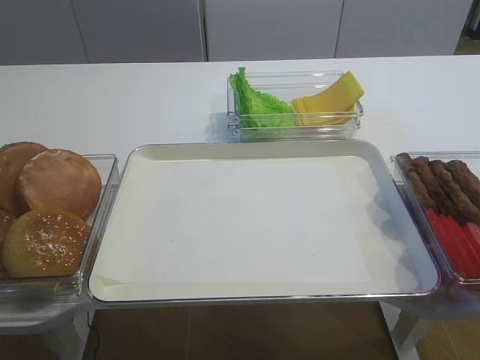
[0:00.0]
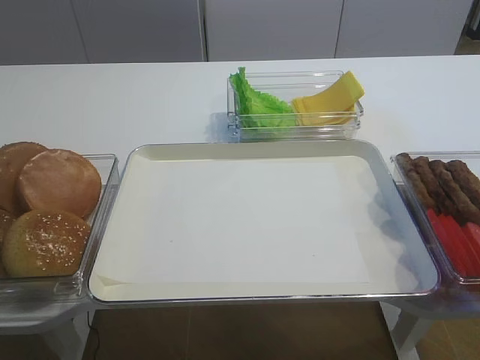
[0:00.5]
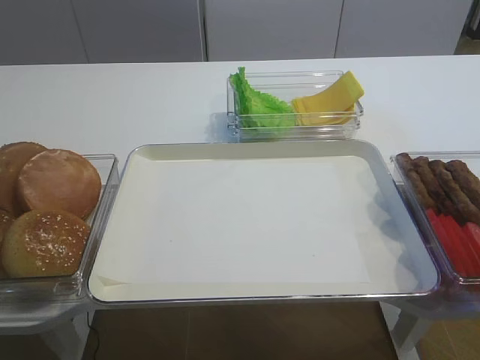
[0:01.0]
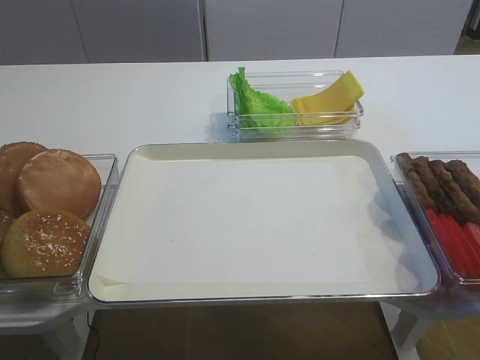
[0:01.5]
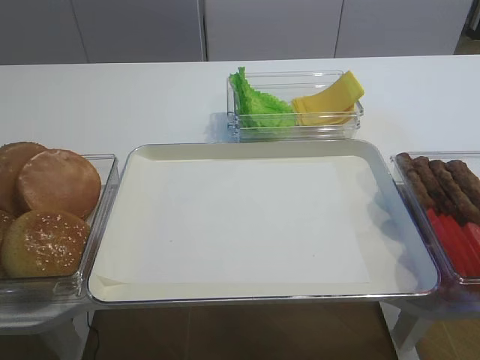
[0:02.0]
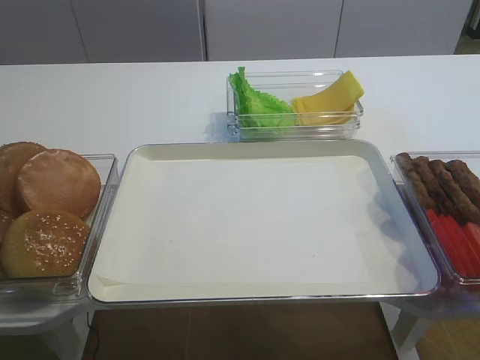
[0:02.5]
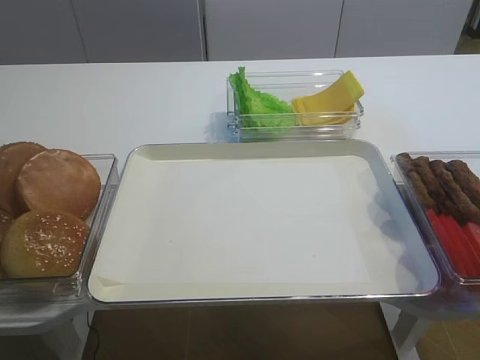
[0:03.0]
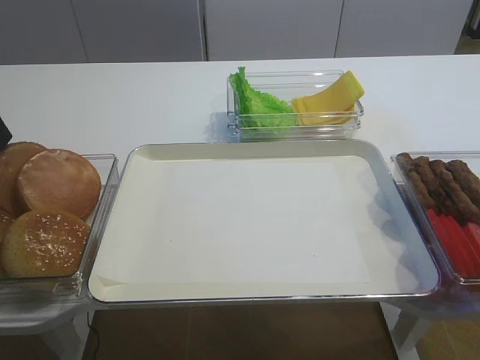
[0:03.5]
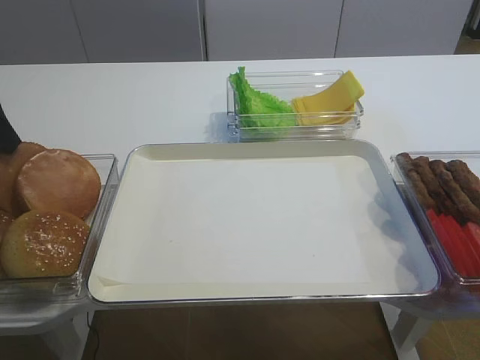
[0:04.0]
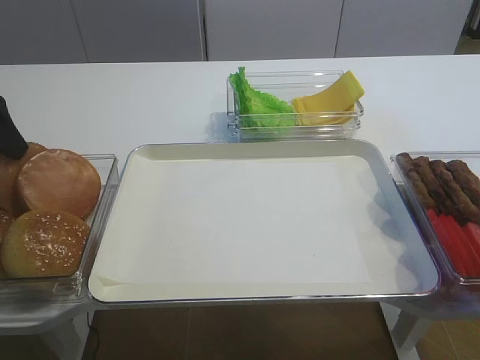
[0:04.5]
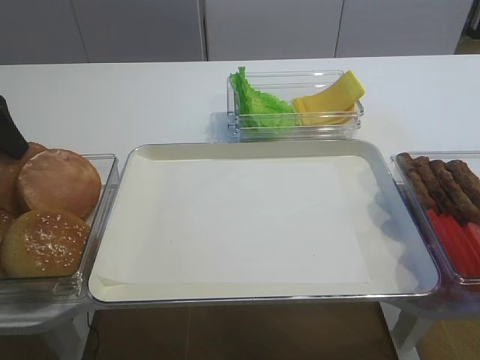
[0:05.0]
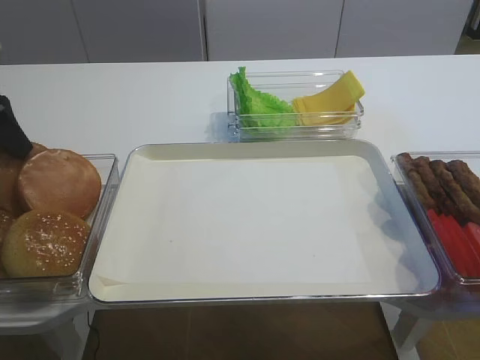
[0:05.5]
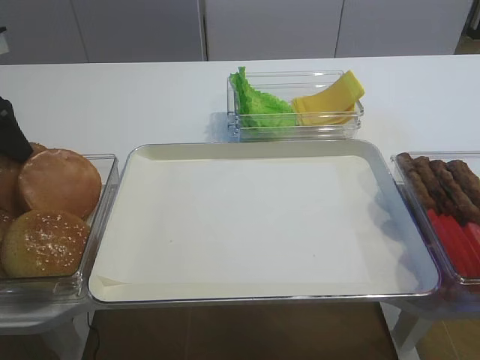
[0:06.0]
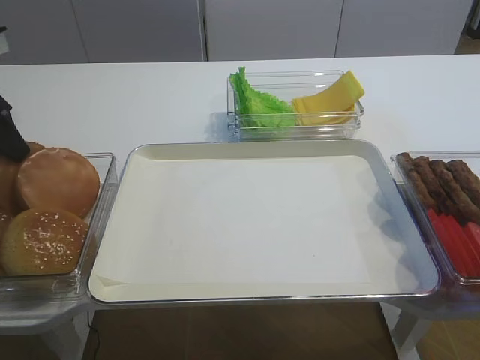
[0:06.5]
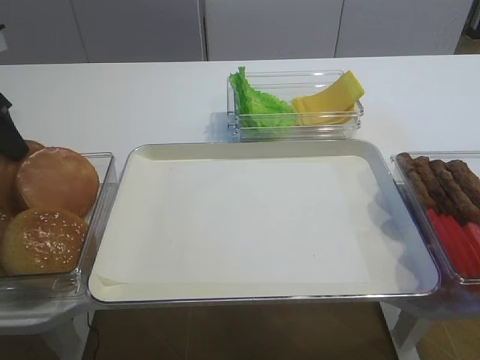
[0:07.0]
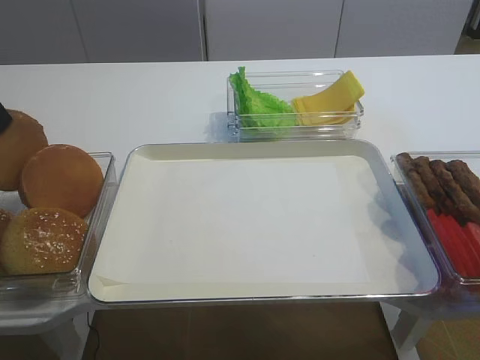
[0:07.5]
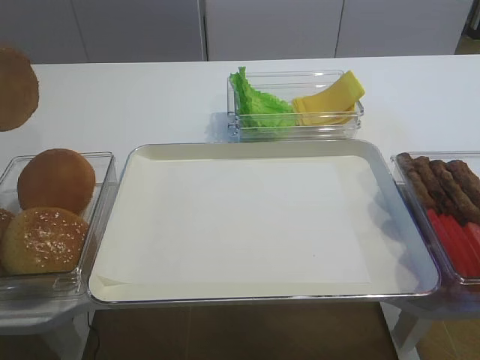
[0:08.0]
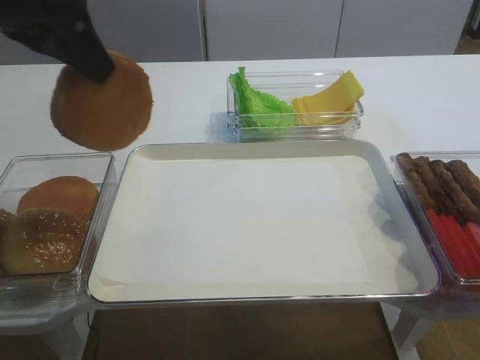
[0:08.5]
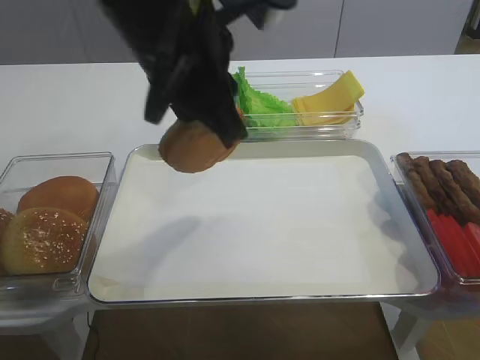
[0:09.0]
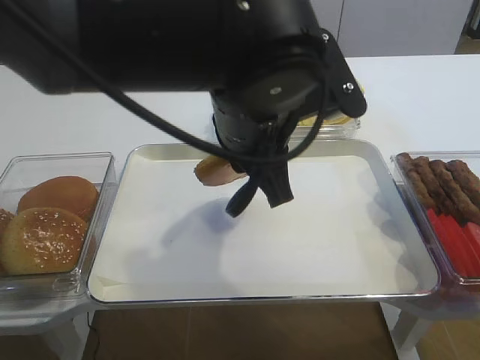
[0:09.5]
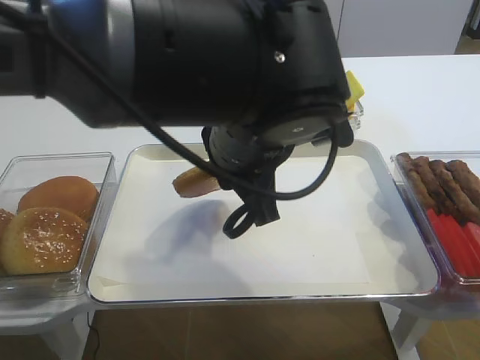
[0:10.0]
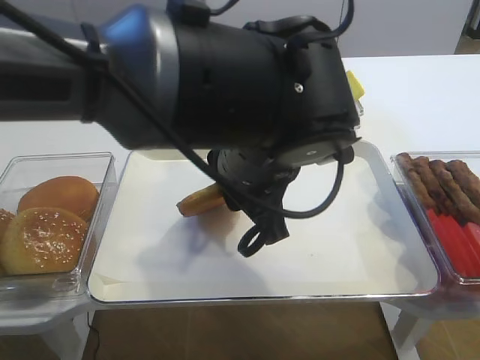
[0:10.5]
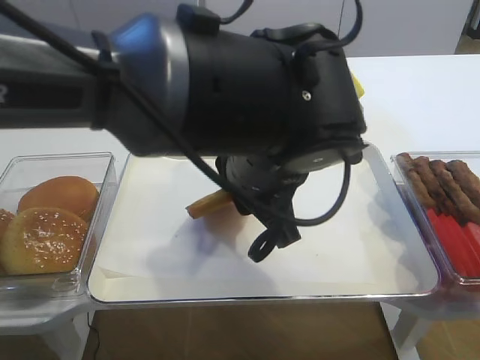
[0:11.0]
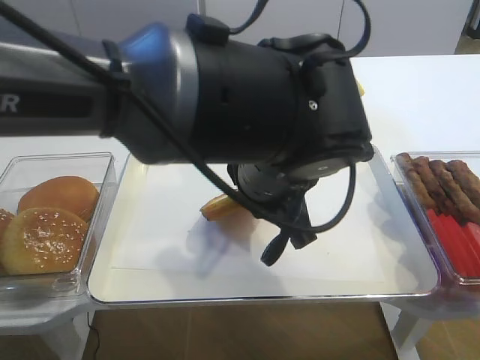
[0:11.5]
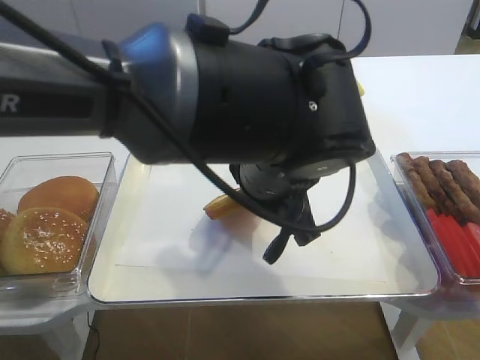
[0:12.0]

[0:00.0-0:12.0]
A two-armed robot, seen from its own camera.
Step, 0:00.0 to 0:07.5: Pick up the bread slice with the left gripper.
0:06.0 to 0:08.0: The left gripper shifts about 10 cm upward, and closes its fingers.
0:08.0 to 0:10.0: The right gripper closes up. Meanwhile the left gripper heads to the right, covering some 30 cm.

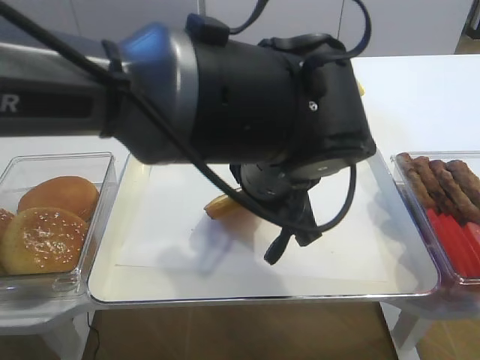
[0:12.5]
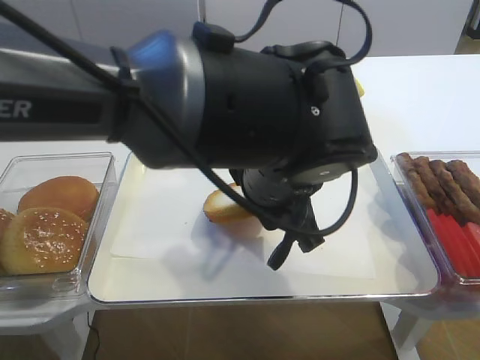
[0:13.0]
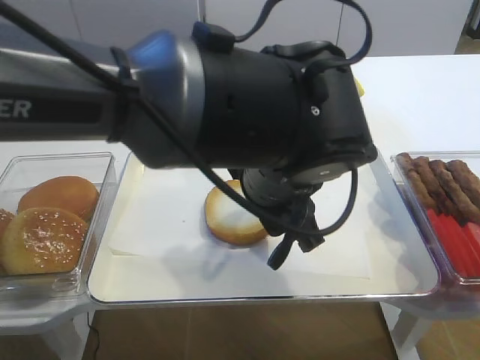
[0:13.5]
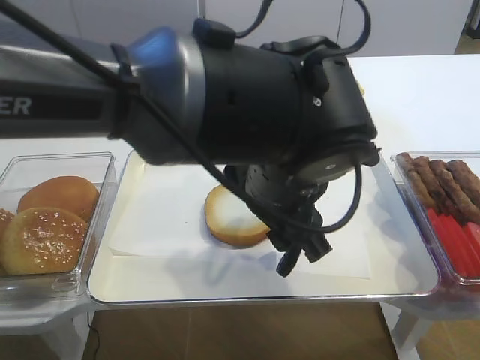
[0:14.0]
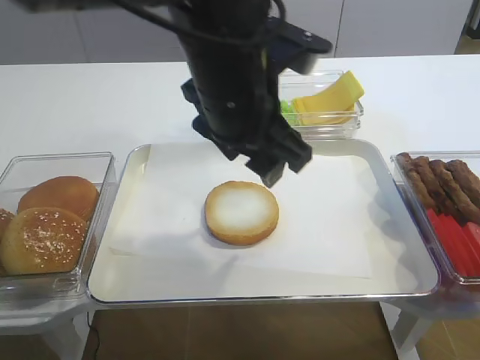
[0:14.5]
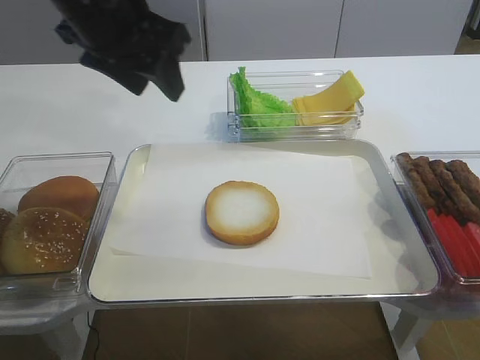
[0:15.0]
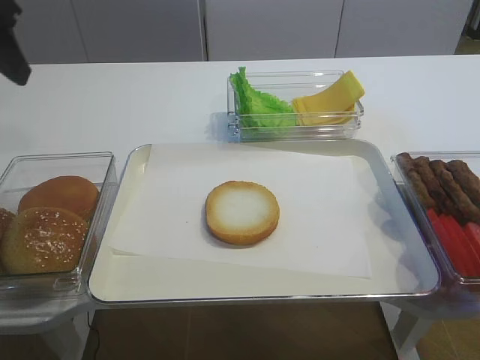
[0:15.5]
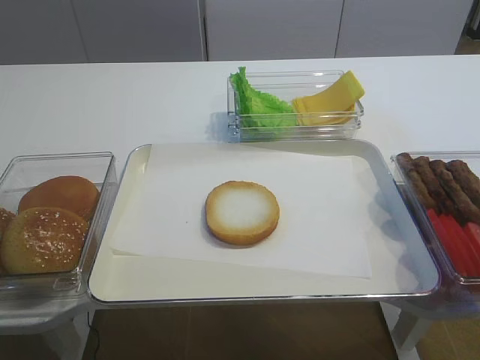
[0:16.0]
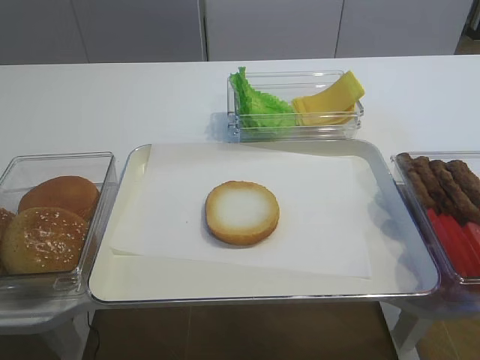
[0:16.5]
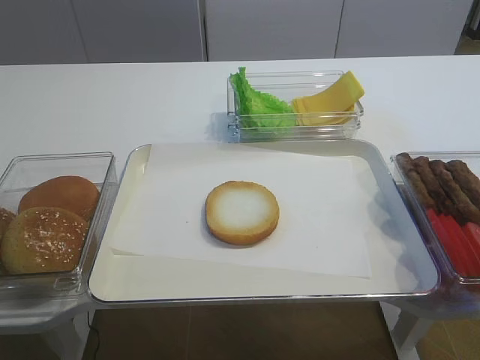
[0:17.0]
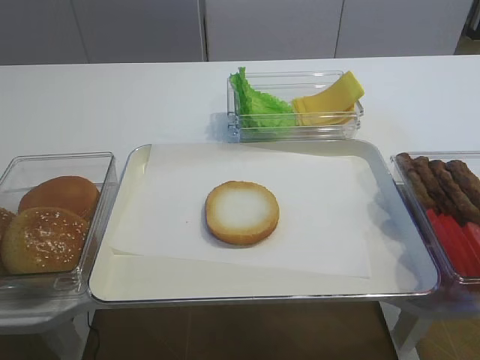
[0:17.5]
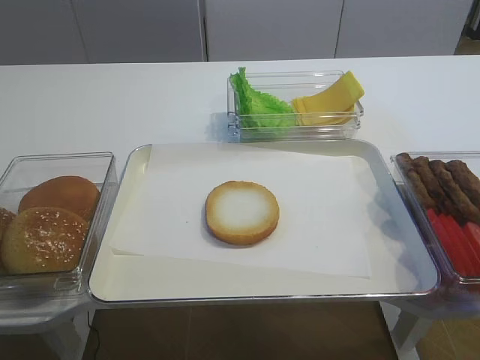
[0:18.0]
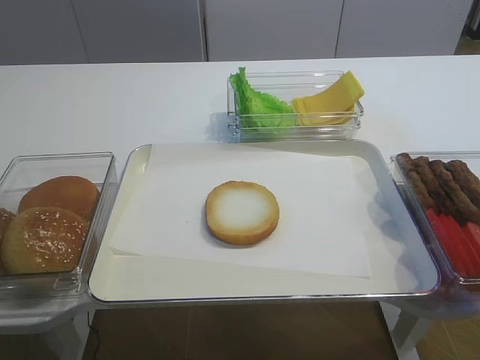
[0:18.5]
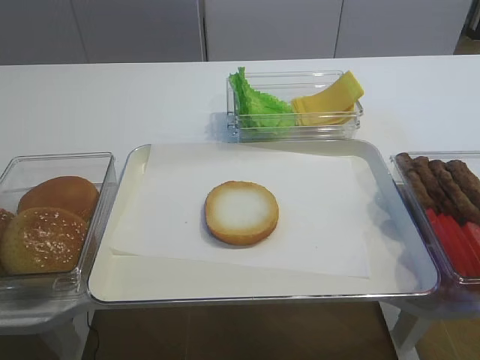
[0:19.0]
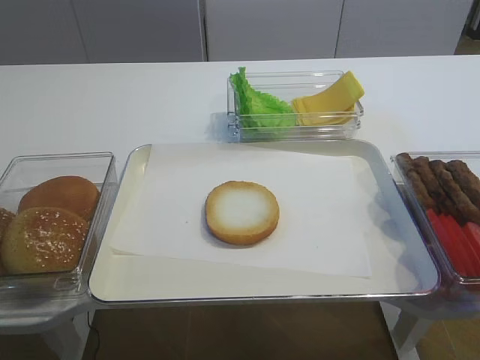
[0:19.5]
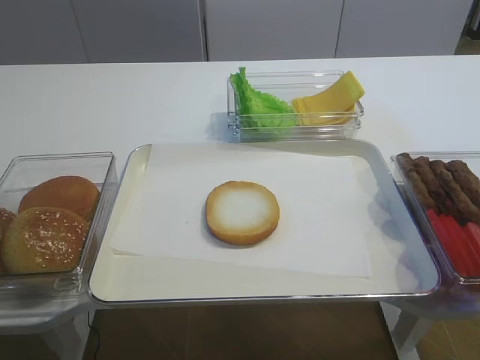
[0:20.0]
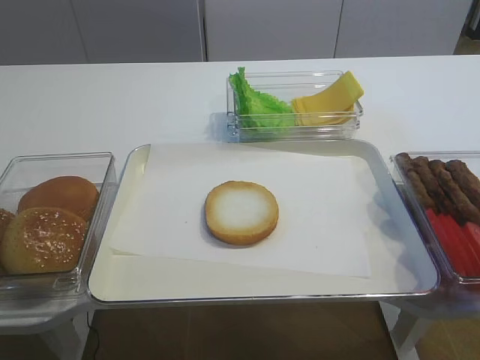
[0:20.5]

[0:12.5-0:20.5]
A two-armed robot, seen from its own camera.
0:12.5 to 0:14.5: The left gripper travels upward and to the left by approximately 10 cm, and opens up.
0:14.5 to 0:16.5: The left gripper travels to the left and backward by about 35 cm.
0:18.5 to 0:20.5: Both grippers stay put.

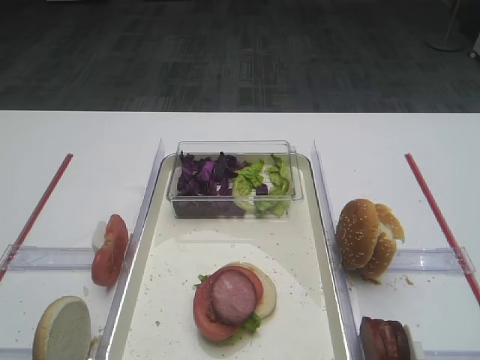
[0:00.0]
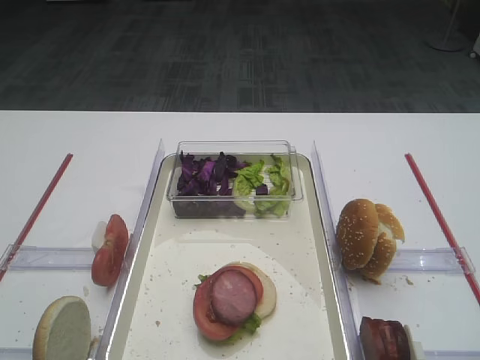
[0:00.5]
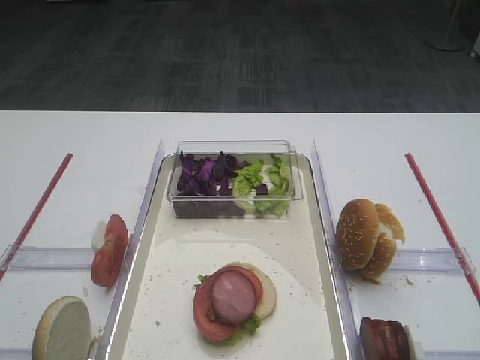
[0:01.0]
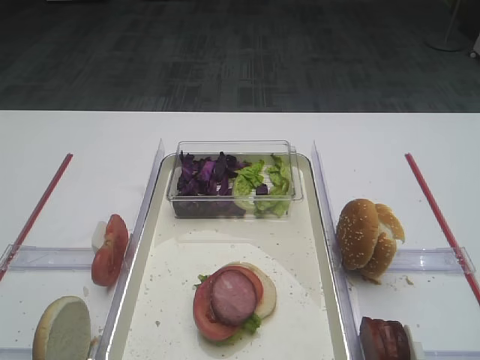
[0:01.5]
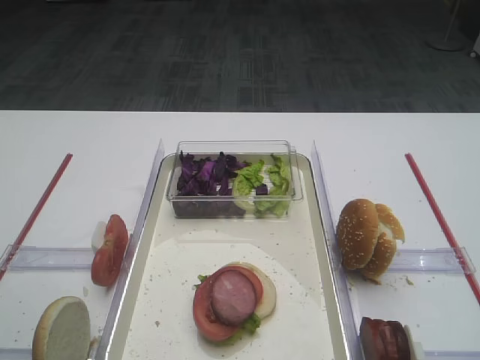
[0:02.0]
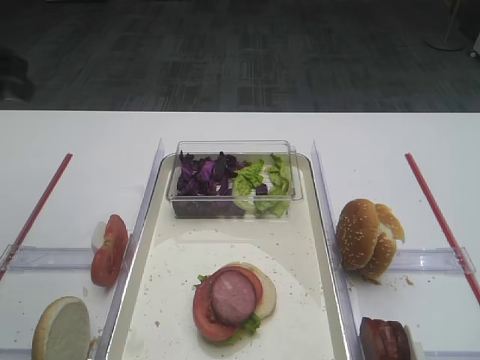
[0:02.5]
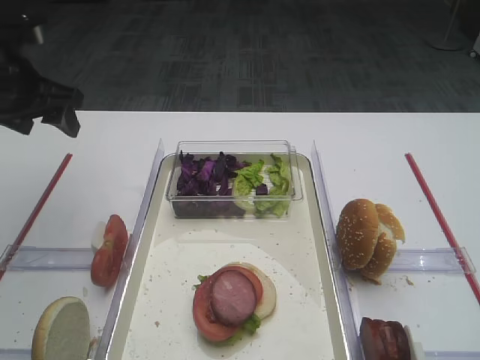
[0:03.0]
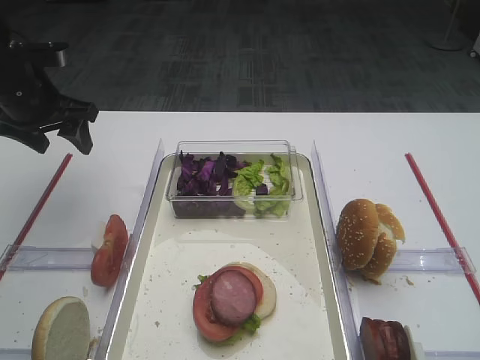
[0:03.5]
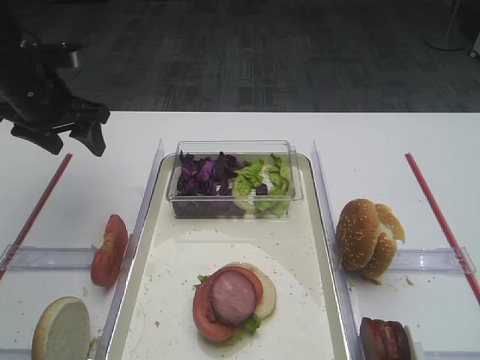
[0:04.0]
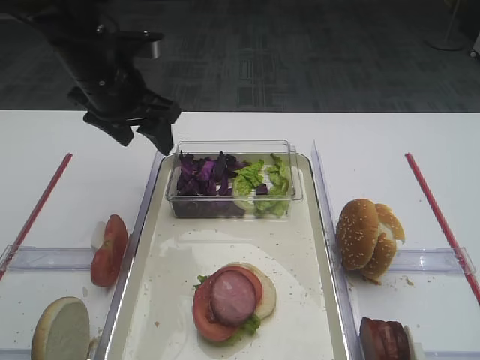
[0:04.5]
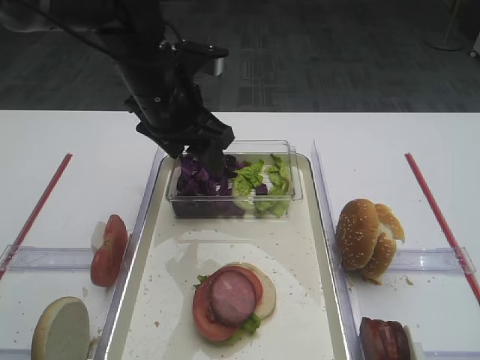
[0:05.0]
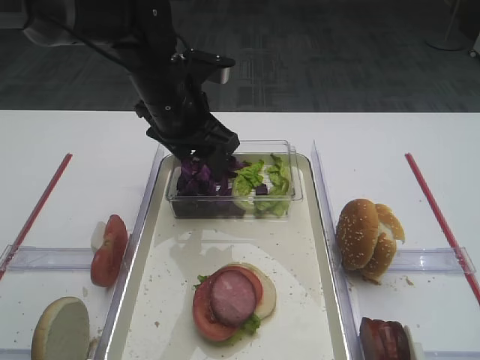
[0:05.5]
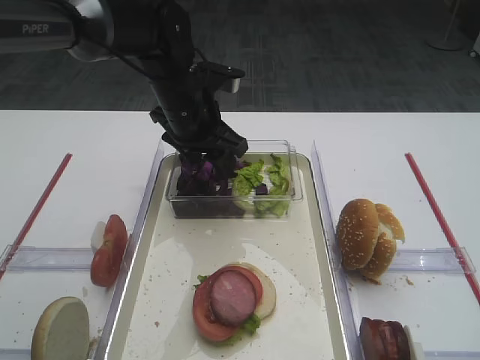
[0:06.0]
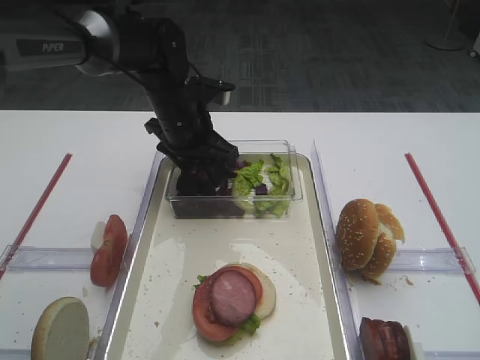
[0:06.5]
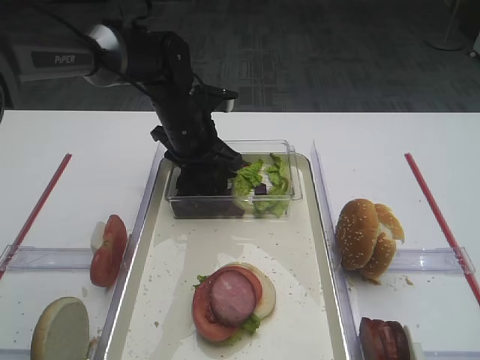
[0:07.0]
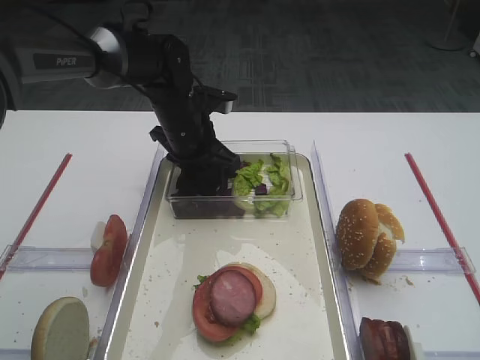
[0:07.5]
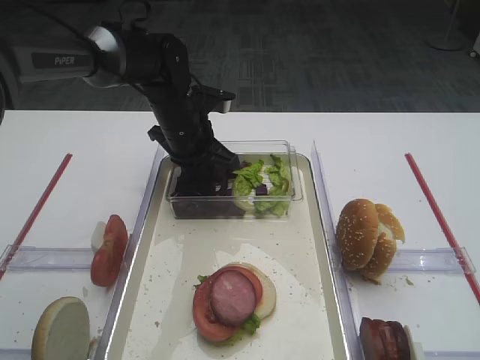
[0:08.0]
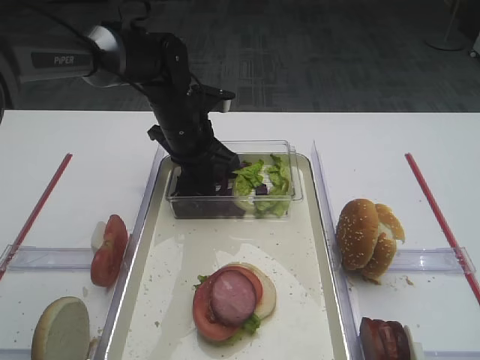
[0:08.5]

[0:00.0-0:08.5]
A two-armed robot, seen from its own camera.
0:02.0 to 0:04.0: The left gripper is displaced forward by about 30 cm.
0:04.0 to 0:06.5: The left gripper travels to the right by approximately 20 cm.
0:06.5 to 0:08.5: The left gripper closes up.
